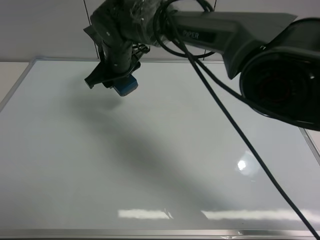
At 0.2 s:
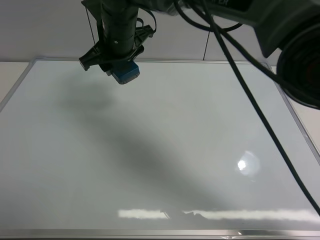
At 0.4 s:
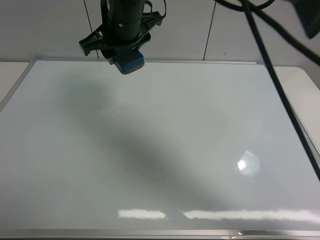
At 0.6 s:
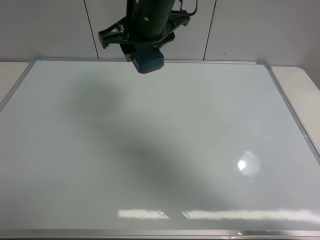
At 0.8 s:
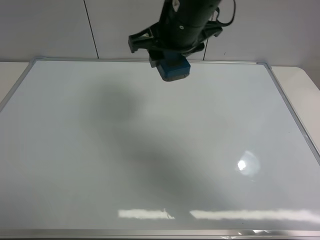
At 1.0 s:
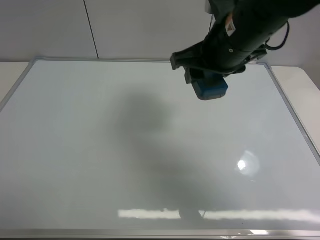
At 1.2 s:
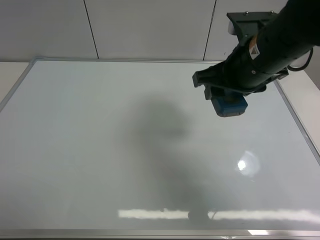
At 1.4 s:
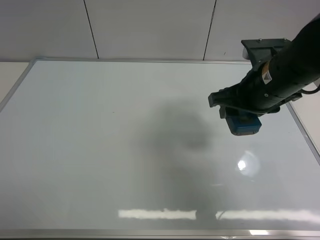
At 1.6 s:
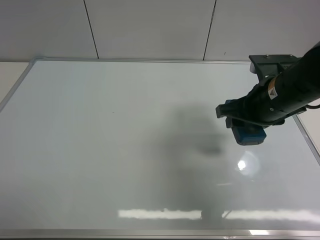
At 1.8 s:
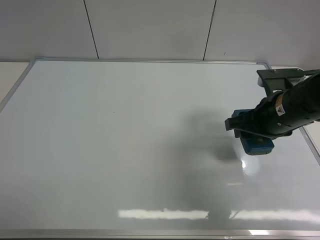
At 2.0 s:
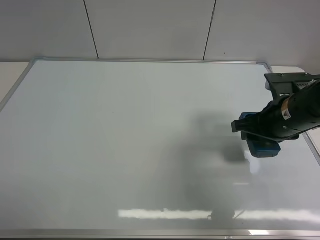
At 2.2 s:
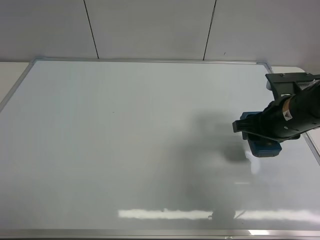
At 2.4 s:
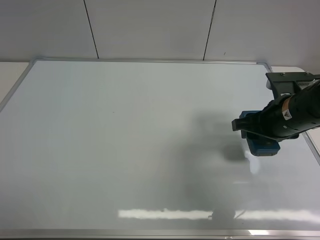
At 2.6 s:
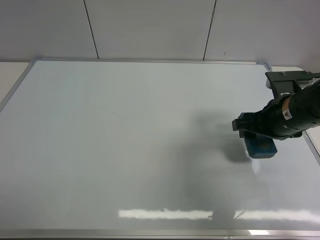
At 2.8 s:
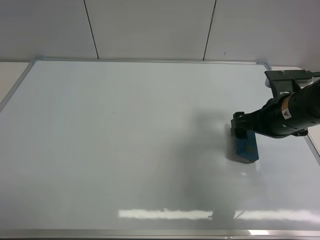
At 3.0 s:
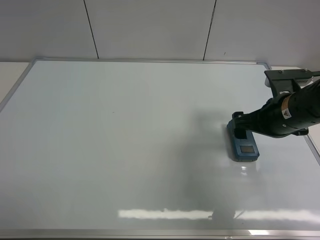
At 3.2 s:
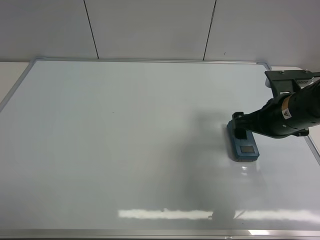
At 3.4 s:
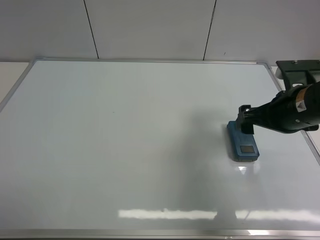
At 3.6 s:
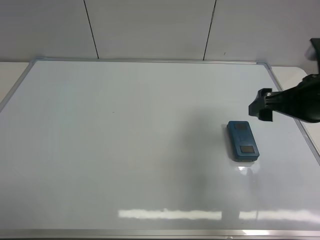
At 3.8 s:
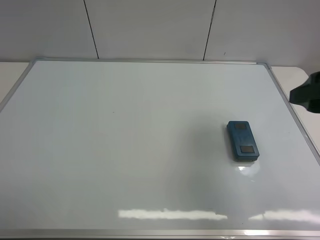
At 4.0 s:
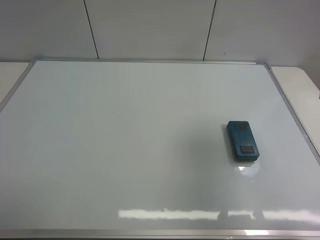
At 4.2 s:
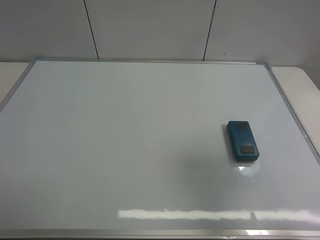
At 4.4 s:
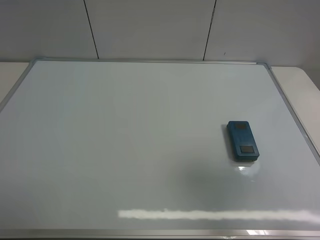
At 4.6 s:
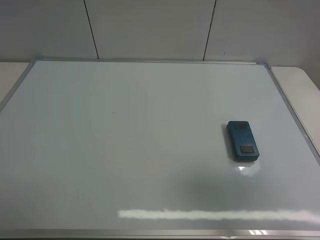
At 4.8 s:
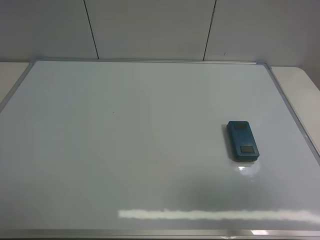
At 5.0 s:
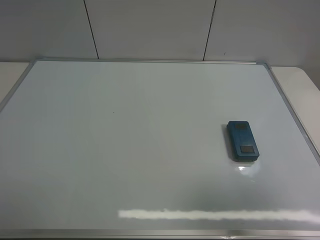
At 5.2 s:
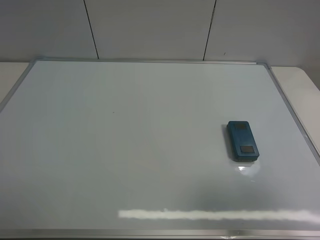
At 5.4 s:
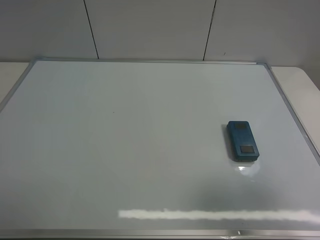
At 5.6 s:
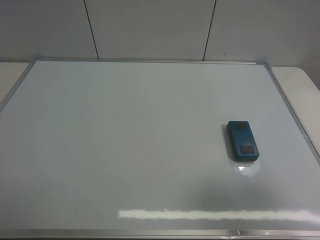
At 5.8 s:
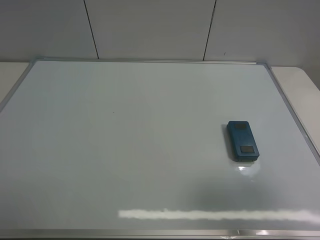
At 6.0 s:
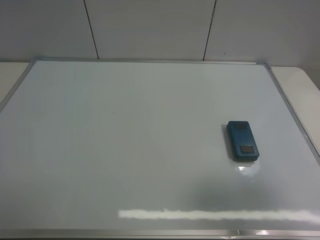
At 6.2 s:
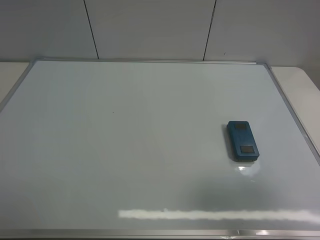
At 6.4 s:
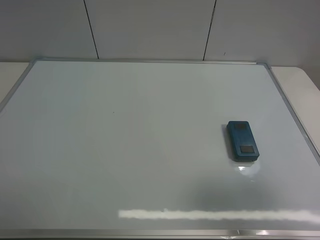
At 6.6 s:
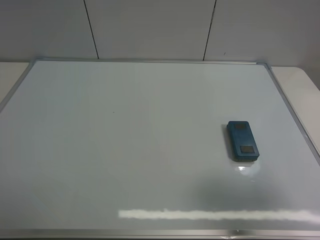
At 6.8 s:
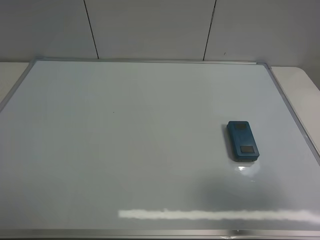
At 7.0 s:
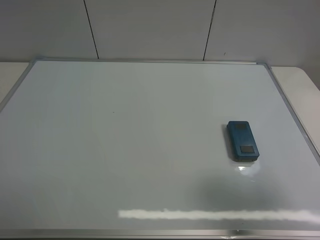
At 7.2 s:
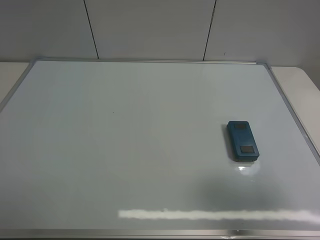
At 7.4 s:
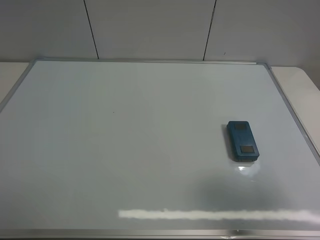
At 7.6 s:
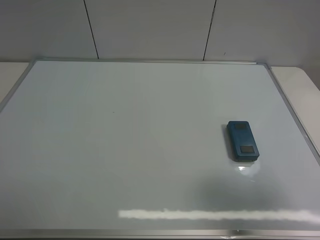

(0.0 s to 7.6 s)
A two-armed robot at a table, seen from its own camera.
Task of the whole recording: use the right gripper to pick up the board eraser, wipe the notes on the whiteboard clean, and then put them back in place.
Step, 0.0 s - 3.4 s: Place the board eraser on the right side of board with right gripper.
0.0 s - 1.6 s: The right gripper is displaced to the right and backward by some 30 cm.
1.6 s - 3.0 s: The right gripper opens up.
3.0 s - 4.6 s: The right gripper heads backward and upward, covering approximately 25 cm.
